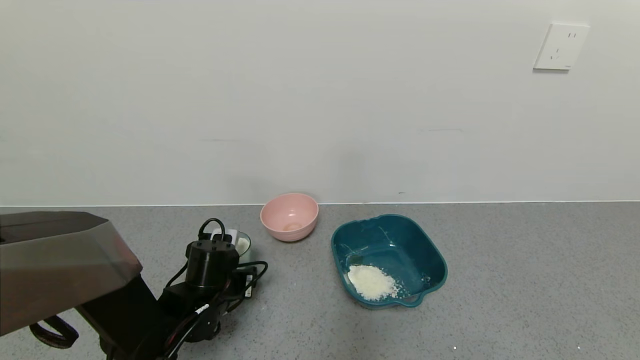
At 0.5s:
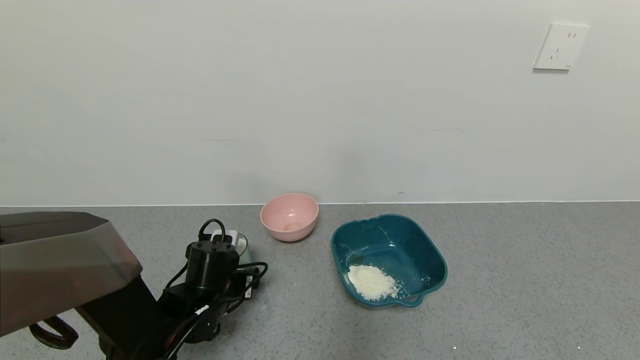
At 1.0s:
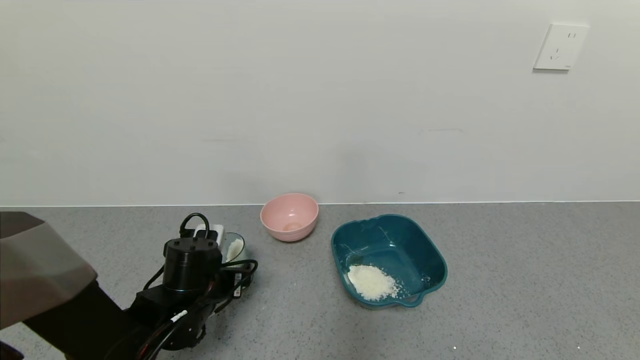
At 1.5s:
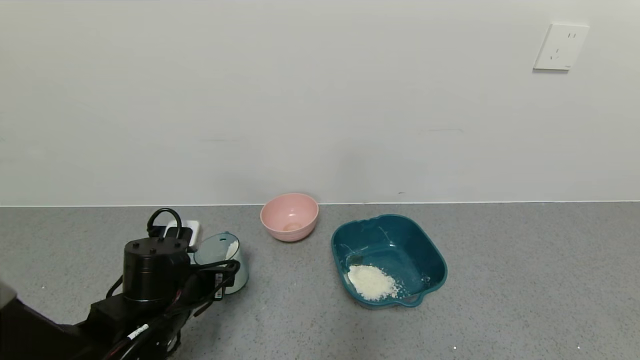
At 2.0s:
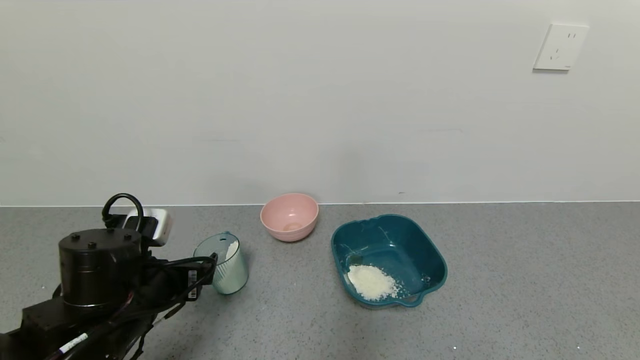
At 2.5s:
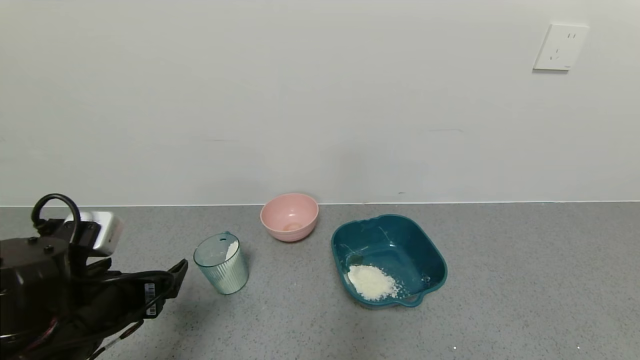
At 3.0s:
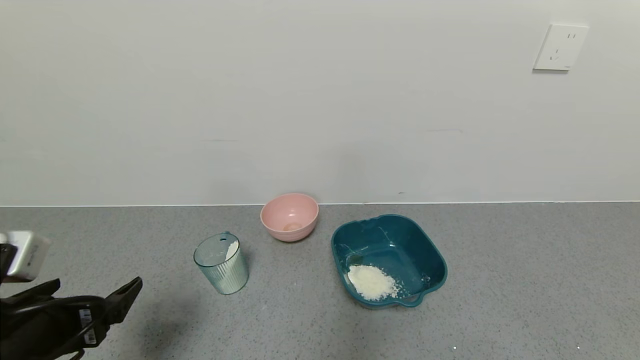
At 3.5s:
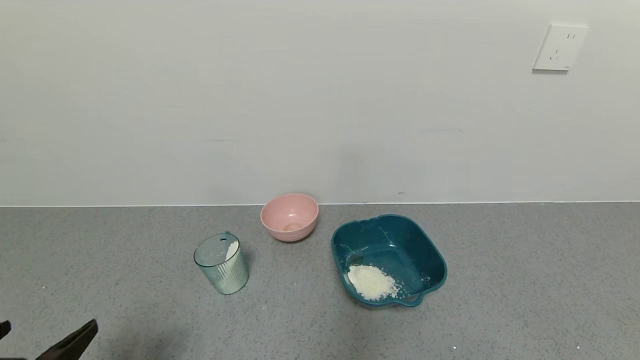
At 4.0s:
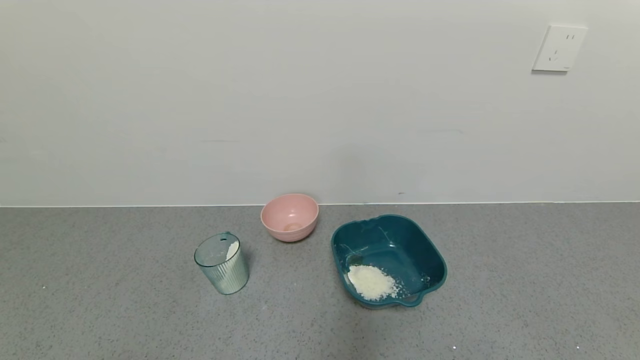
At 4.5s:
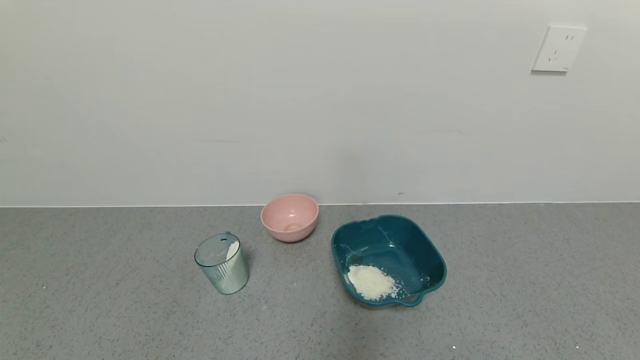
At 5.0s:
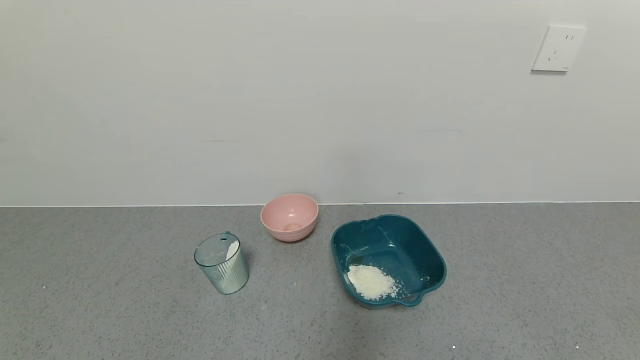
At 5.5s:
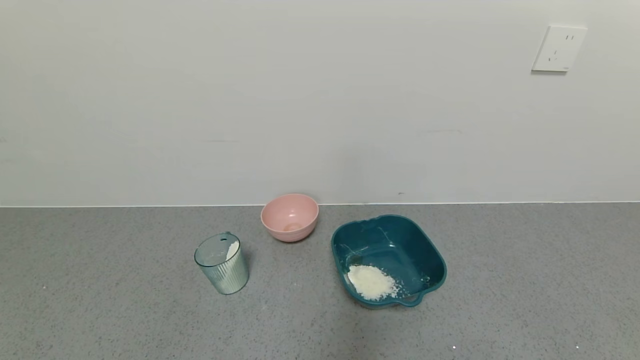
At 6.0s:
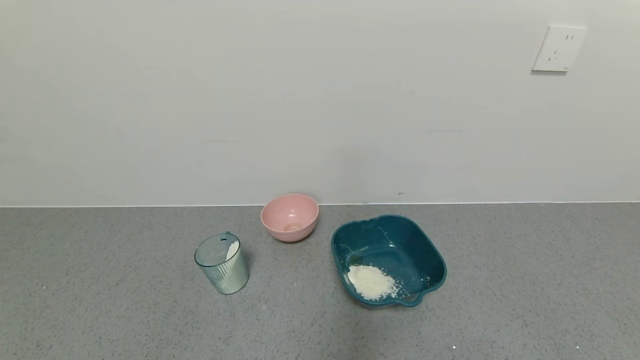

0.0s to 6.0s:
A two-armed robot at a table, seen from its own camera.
Task of the whole recording: use a gripper to pick up the cup and pour the powder into a bowl or tray.
0.0s to 2.0s: The left gripper is displaced upward and backward by approximately 10 cm, and opens up.
2.0s to 4.0s: The left gripper shifts about 20 cm backward.
